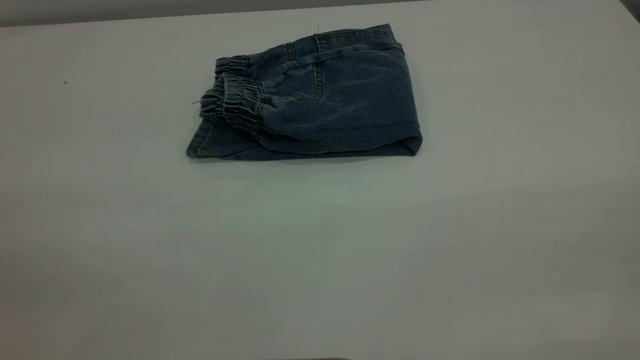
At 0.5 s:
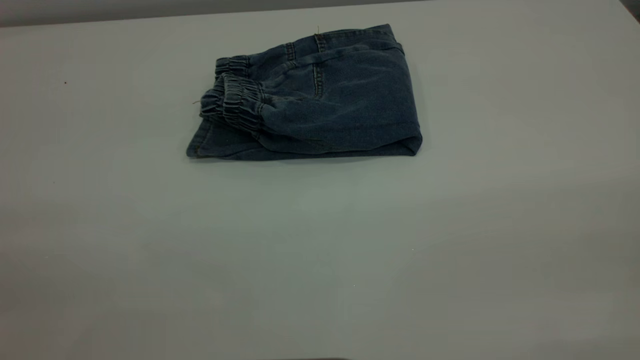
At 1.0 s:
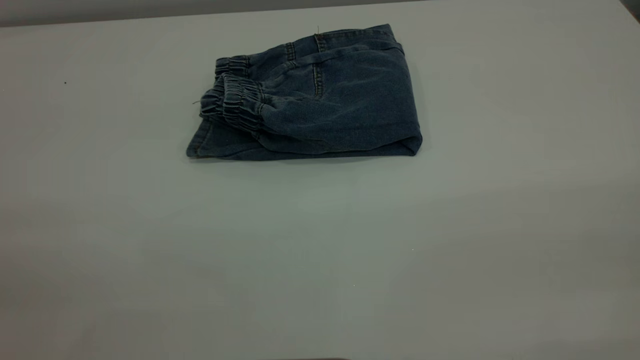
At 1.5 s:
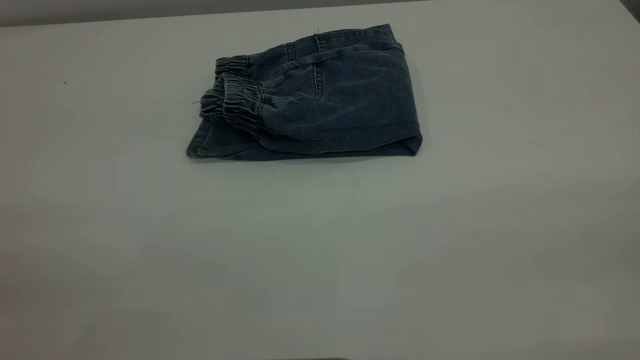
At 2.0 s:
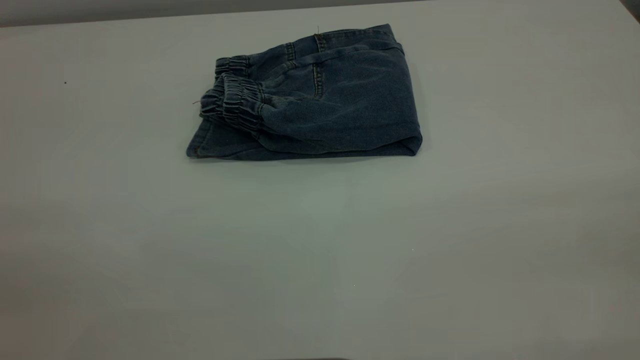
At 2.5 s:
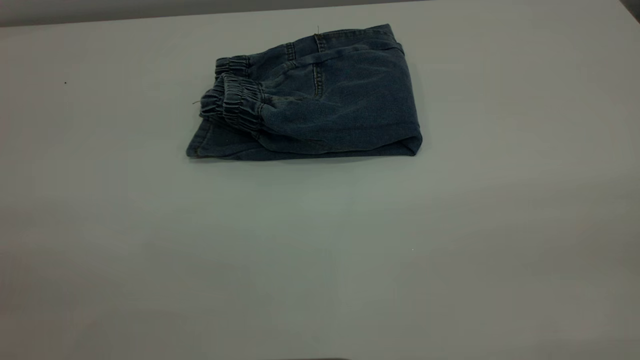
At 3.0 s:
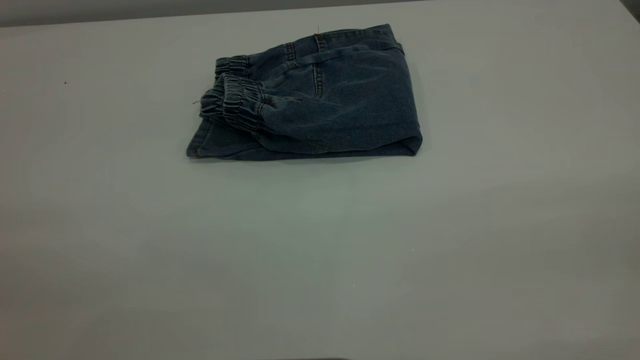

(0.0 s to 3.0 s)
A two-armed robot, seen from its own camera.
1.5 s - 3.0 s: Both grippers stay about where they are.

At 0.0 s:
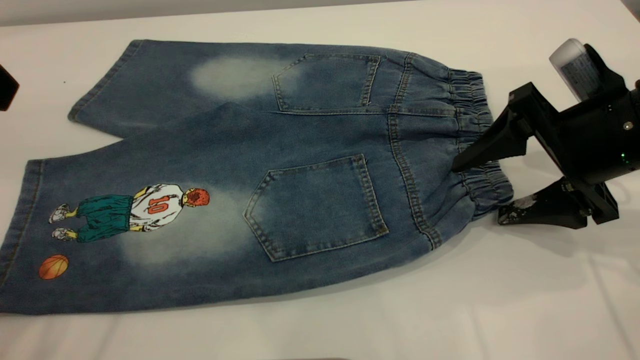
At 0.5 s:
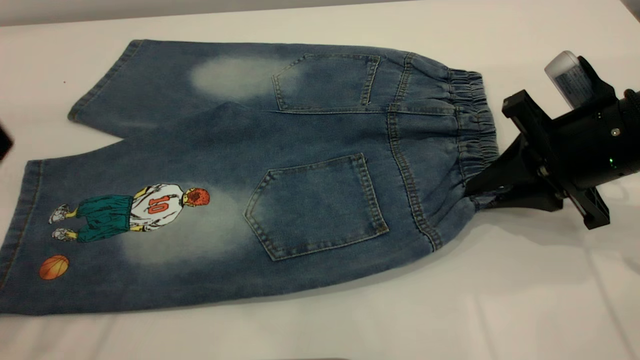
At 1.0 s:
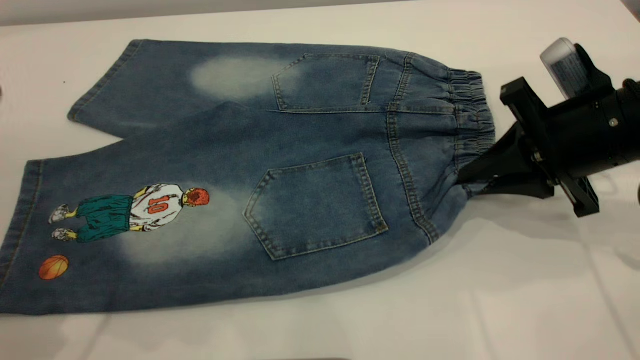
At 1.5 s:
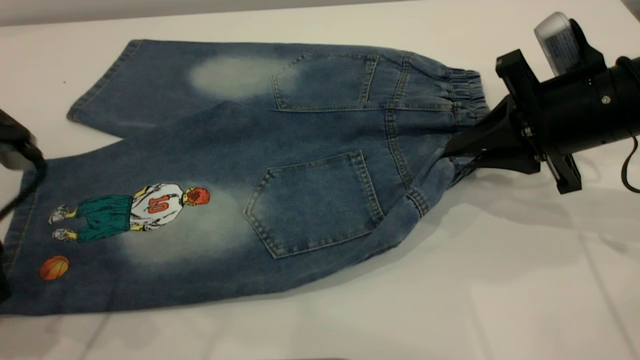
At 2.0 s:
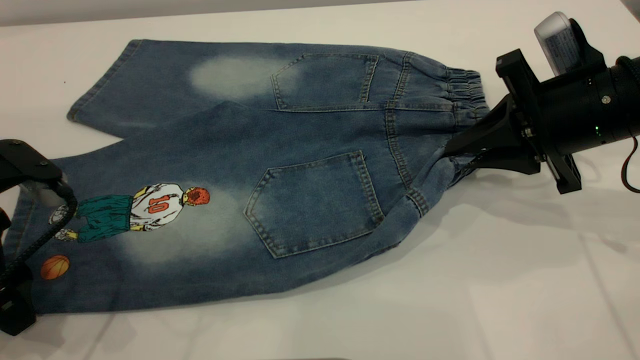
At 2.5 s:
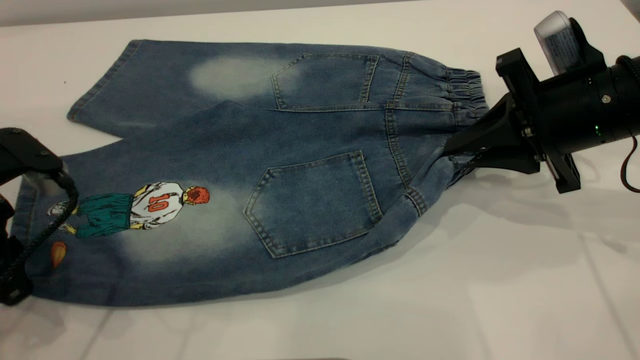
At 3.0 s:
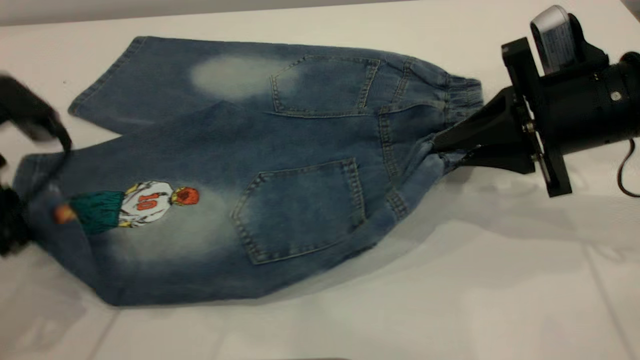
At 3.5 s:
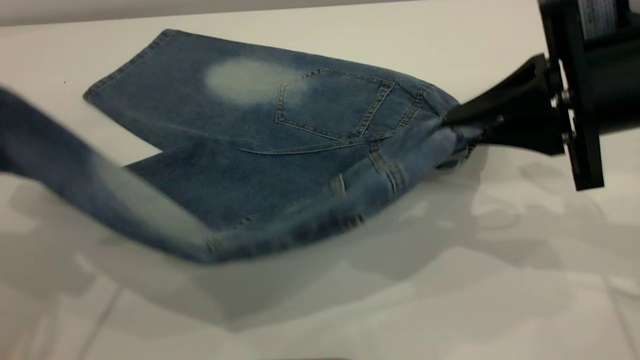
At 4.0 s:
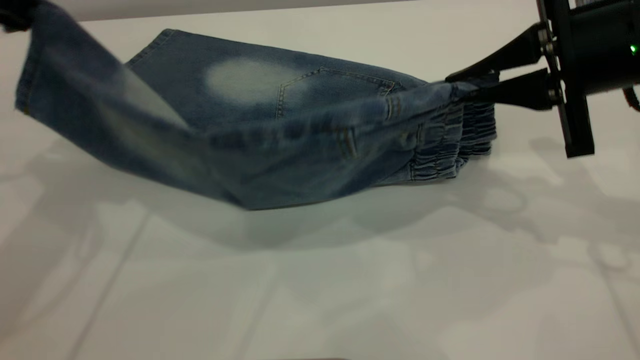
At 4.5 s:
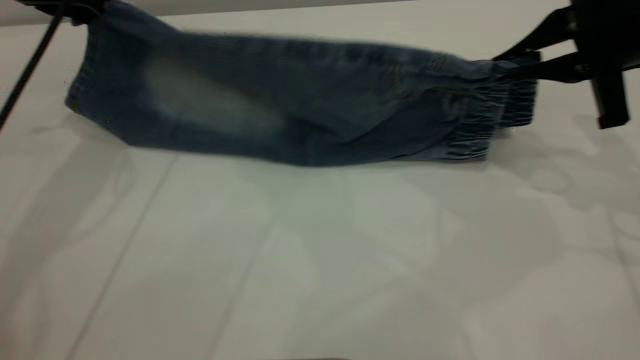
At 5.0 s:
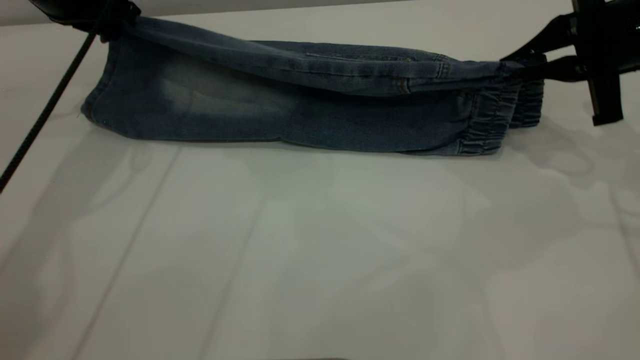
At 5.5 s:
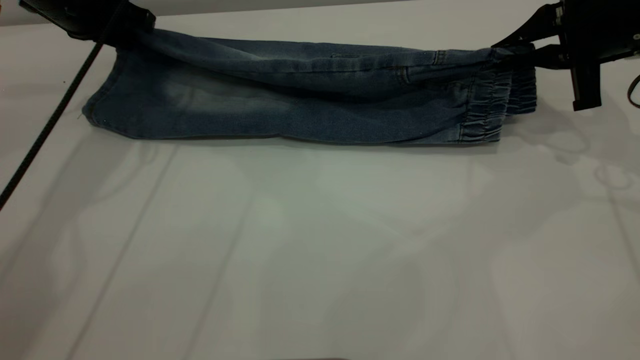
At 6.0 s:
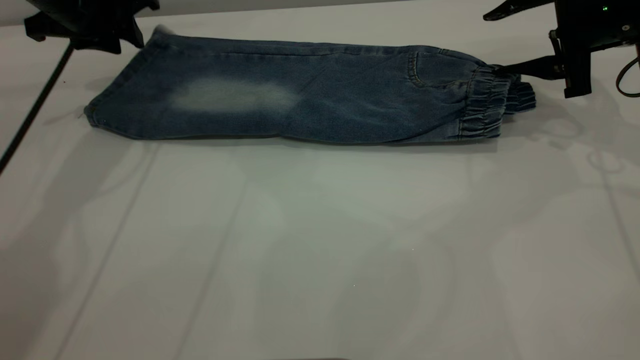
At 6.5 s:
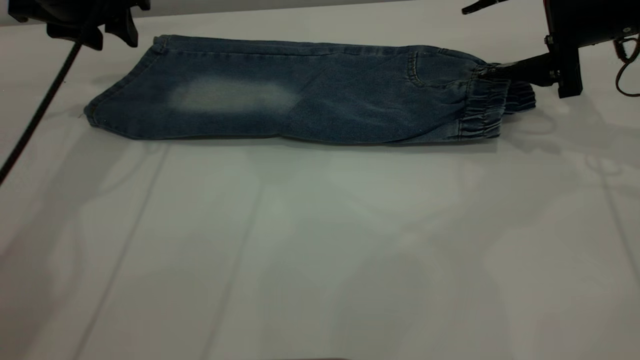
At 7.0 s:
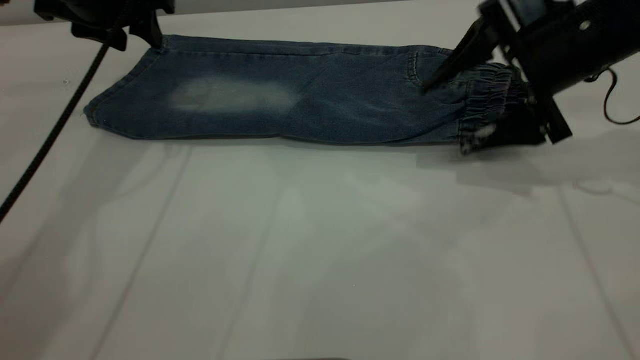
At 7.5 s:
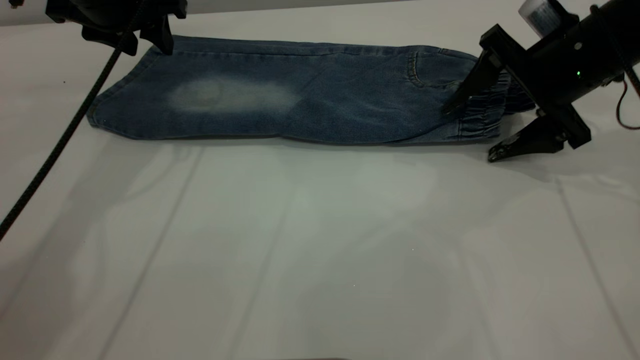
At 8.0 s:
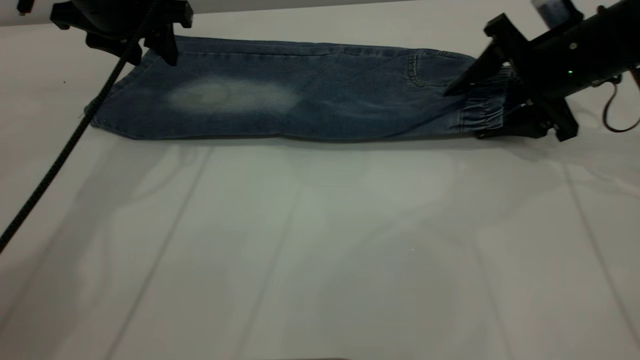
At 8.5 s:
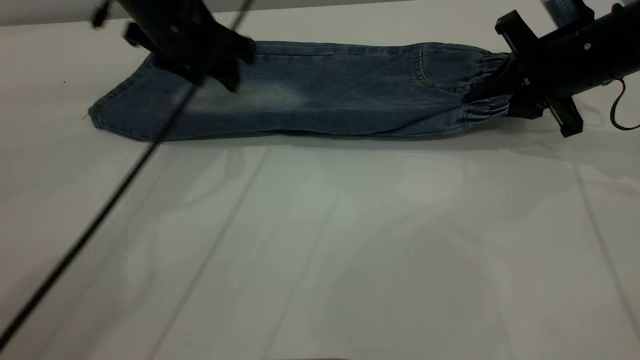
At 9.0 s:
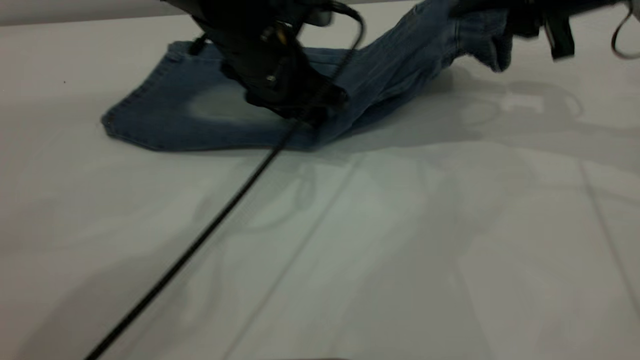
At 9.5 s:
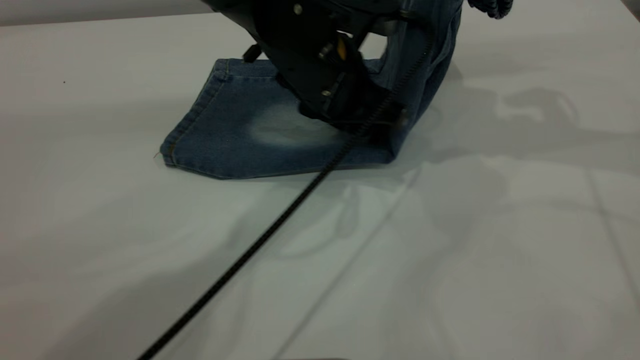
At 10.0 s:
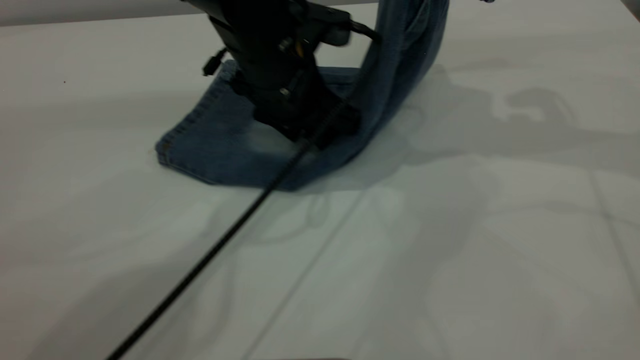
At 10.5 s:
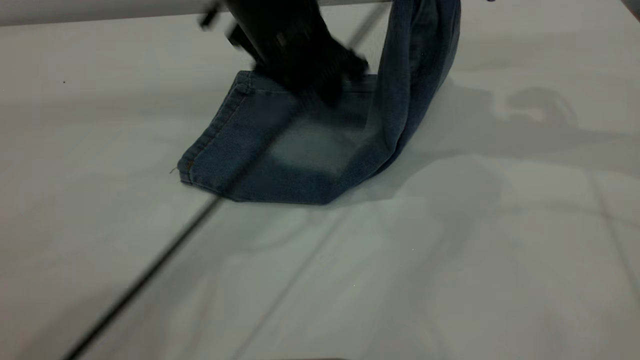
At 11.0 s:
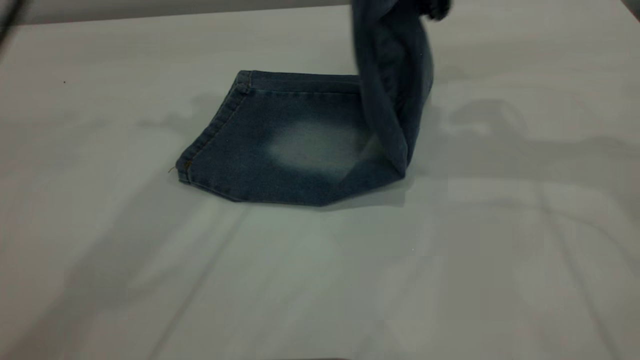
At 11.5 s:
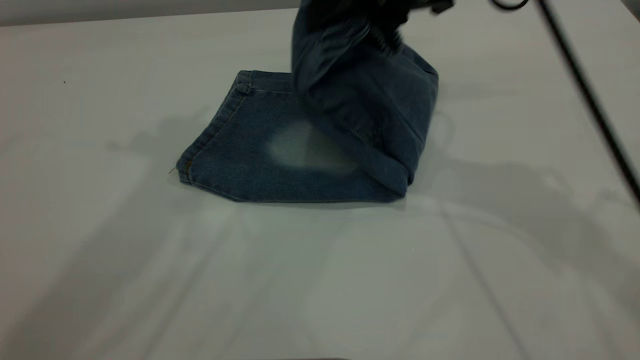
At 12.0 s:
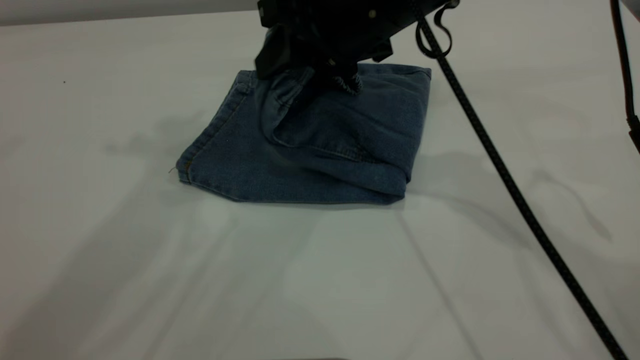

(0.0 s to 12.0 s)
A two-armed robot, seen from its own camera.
Step, 0.0 s - 6.0 s: Fold the bottom of the pants upward.
0.0 s - 2.0 s: The left gripper is displaced downward by about 20 cm; the right gripper closes up.
2.0 s - 4.0 s: The right gripper travels upward by some 5 cm; the left gripper heads upward and forward, covering roughly 20 cm, and closes.
4.0 s - 6.0 s: The left gripper travels forward and downward by some 15 cm, and opens. Meanwhile the right gripper moves forward and to the right, roughly 10 cm, and opens.
6.0 s - 8.0 s: The right gripper changes place by roughly 5 cm; the left gripper moves roughly 5 cm.
8.0 s - 10.0 s: The right gripper is displaced upward by roughly 15 cm, and closes. Meanwhile the left gripper heads to the right and backward, covering some 20 cm.
10.0 s - 12.0 s: The right gripper shifts approximately 20 cm to the left and downward, and opens. Meanwhile the left gripper heads upward, covering about 30 cm.

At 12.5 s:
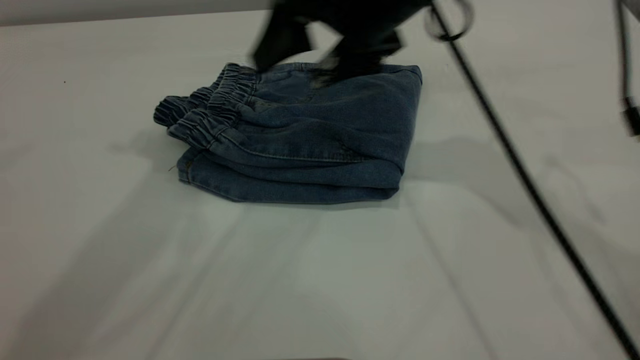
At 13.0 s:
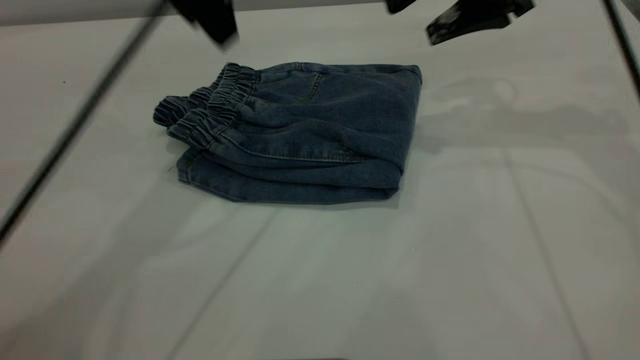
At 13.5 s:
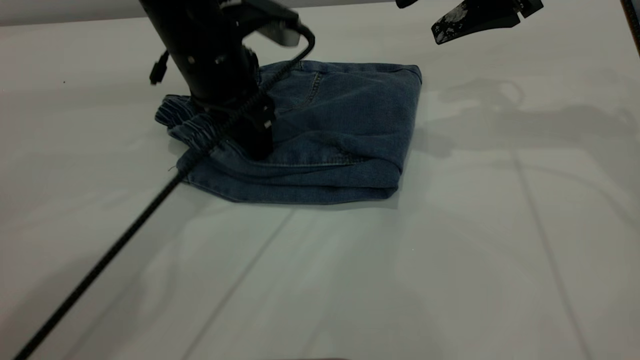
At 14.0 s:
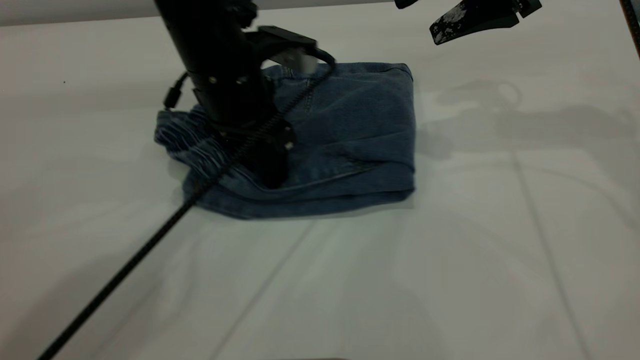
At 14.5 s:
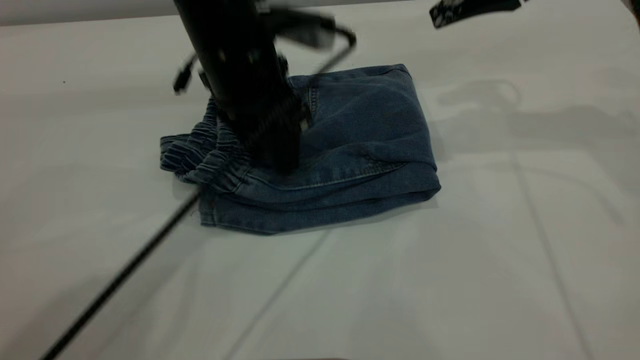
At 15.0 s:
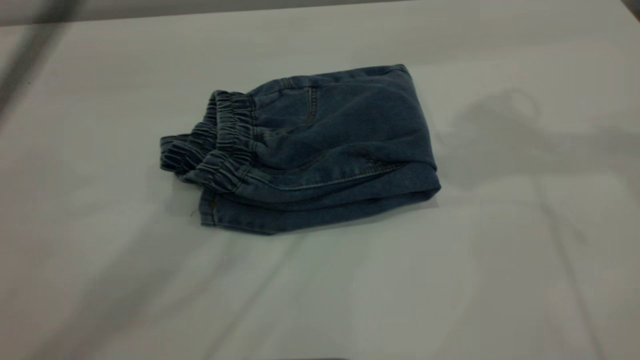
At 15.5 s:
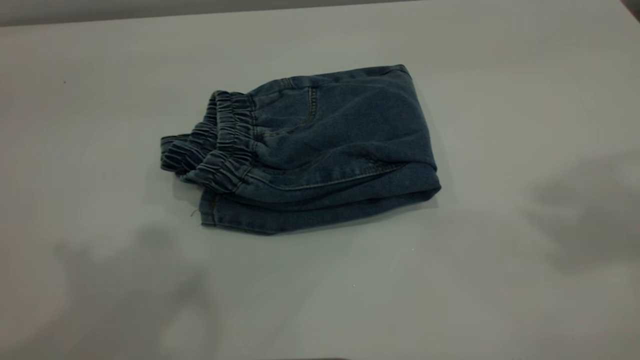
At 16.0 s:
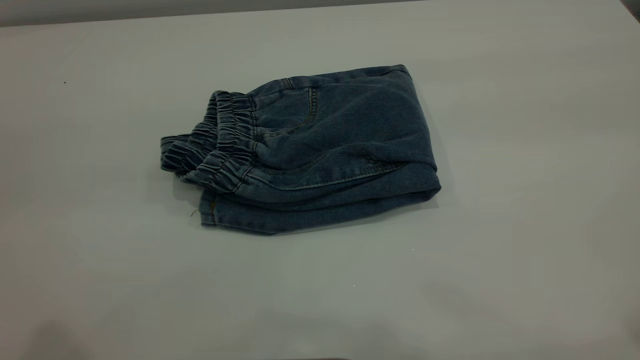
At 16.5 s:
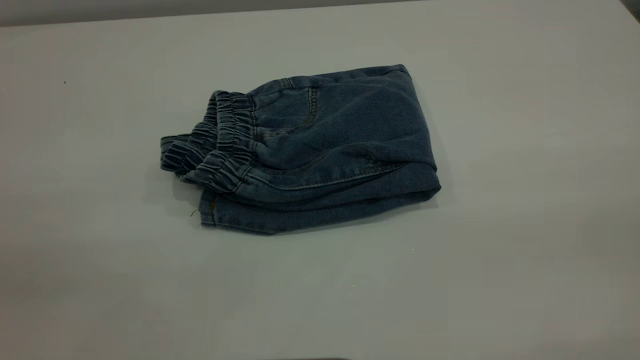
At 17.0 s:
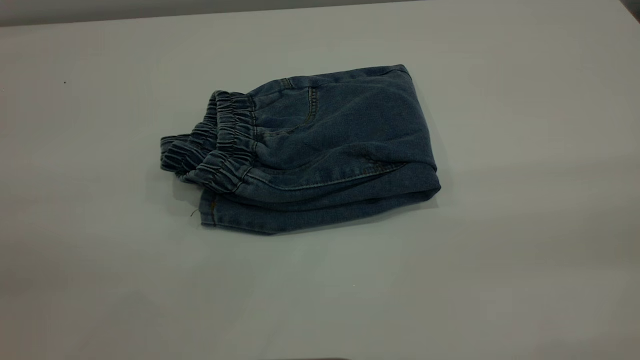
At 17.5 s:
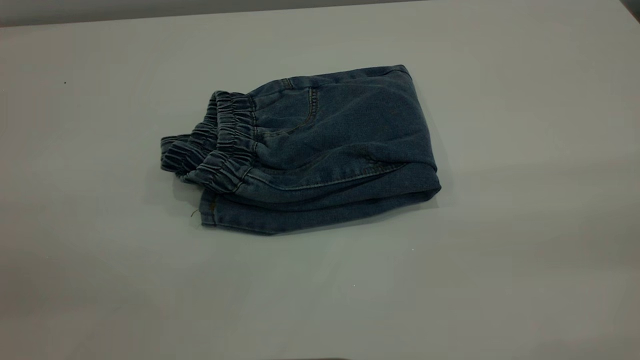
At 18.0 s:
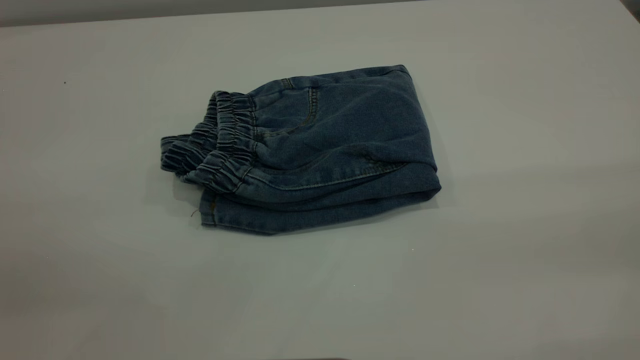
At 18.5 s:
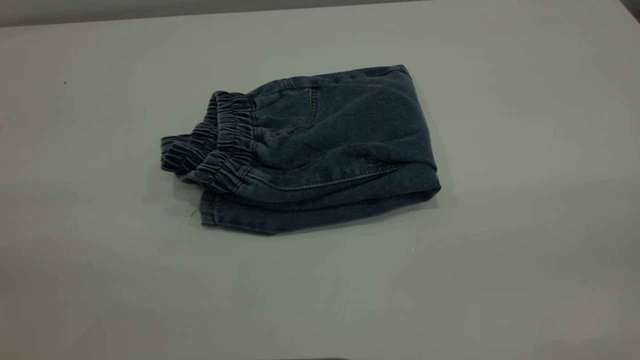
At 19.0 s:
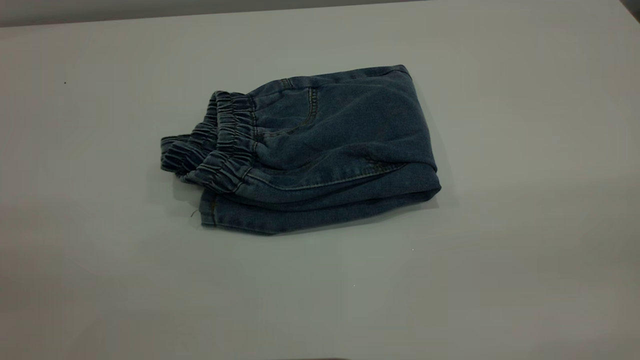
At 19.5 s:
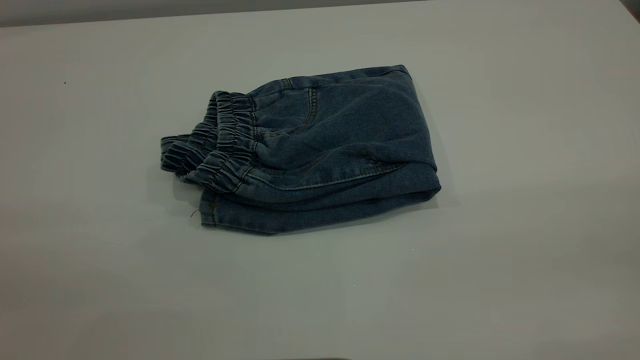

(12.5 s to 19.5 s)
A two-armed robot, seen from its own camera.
12.5 s - 14.5 s: The left gripper moves downward, roughly 25 cm. The right gripper is displaced to the right by approximately 10 cm.
14.5 s - 16.0 s: The right gripper is displaced backward and upward by about 35 cm, while the left gripper shifts some 40 cm backward, upward and to the left.
